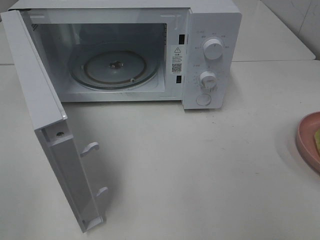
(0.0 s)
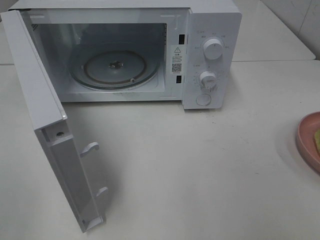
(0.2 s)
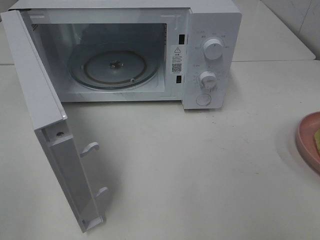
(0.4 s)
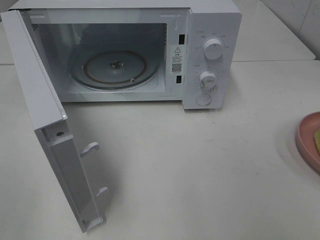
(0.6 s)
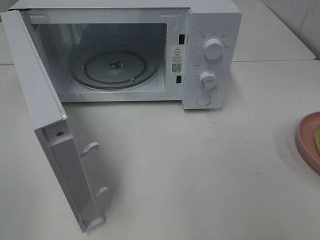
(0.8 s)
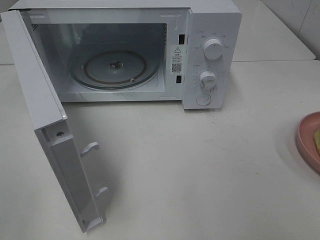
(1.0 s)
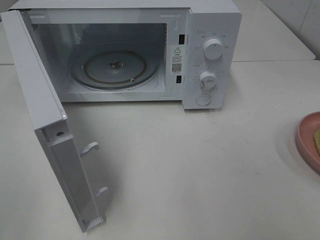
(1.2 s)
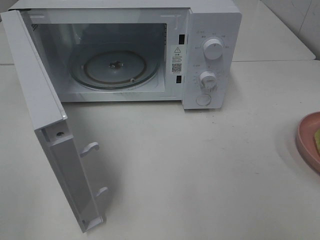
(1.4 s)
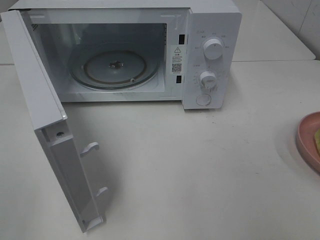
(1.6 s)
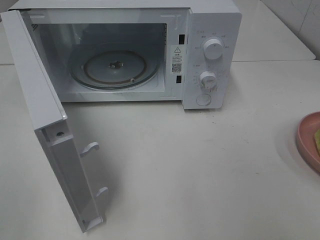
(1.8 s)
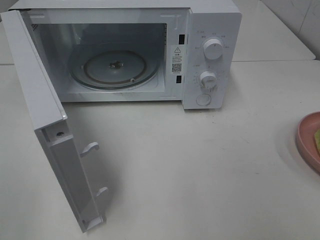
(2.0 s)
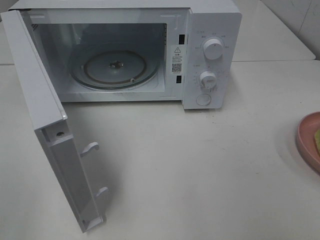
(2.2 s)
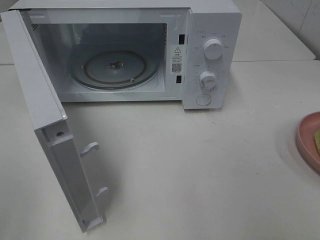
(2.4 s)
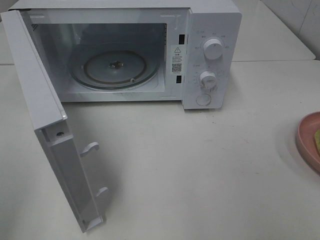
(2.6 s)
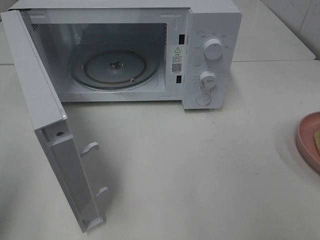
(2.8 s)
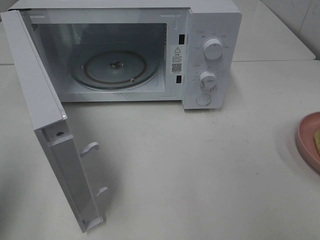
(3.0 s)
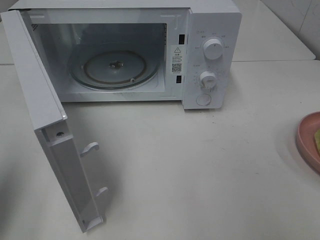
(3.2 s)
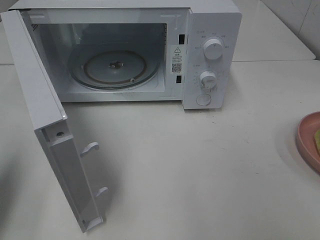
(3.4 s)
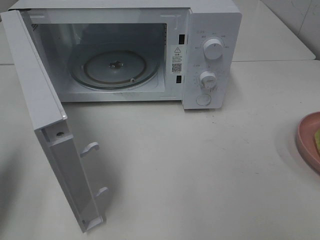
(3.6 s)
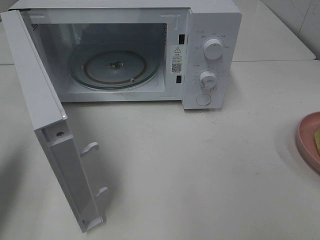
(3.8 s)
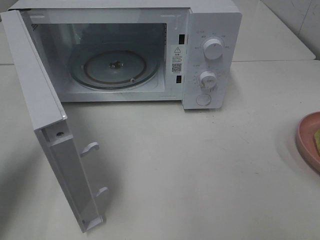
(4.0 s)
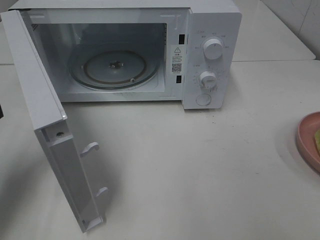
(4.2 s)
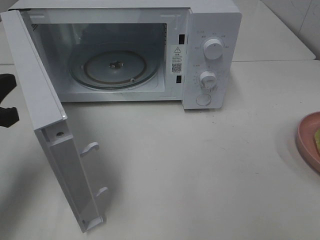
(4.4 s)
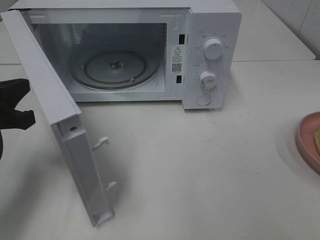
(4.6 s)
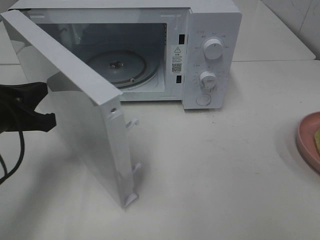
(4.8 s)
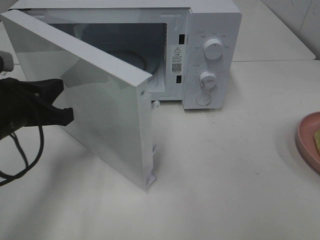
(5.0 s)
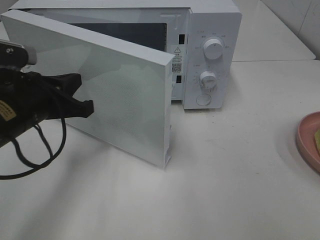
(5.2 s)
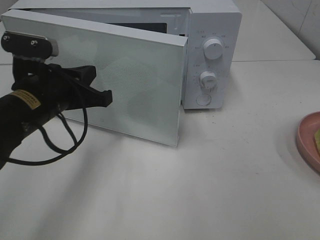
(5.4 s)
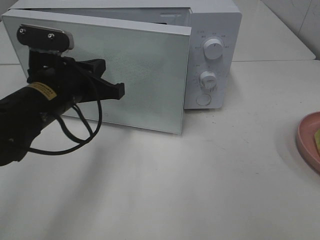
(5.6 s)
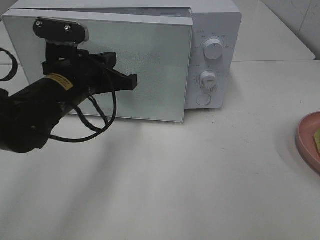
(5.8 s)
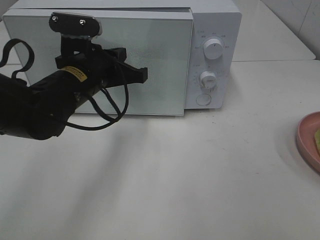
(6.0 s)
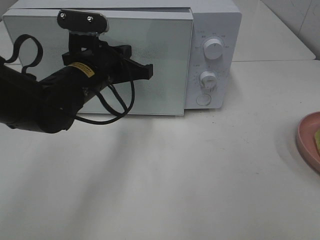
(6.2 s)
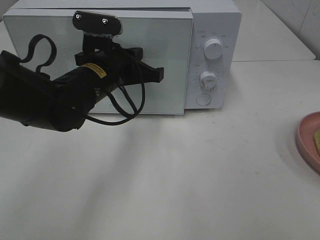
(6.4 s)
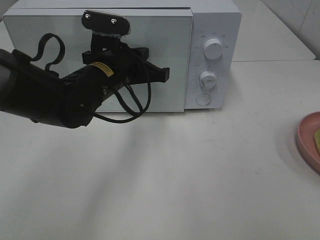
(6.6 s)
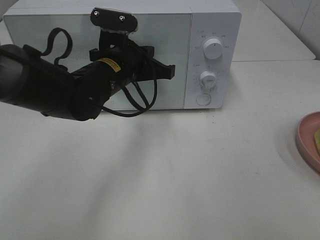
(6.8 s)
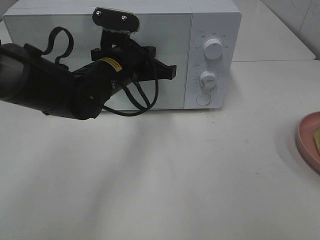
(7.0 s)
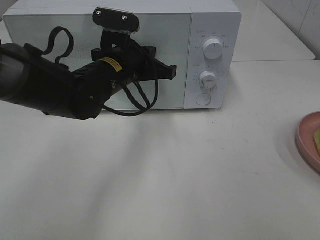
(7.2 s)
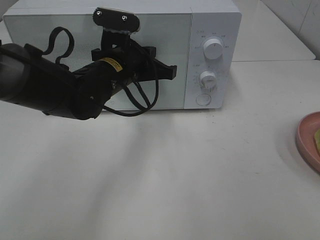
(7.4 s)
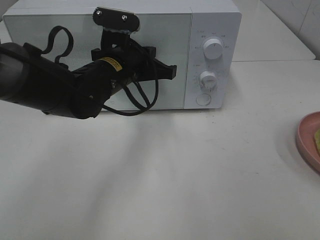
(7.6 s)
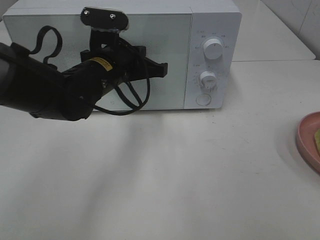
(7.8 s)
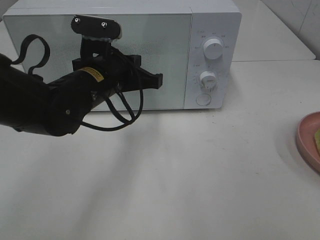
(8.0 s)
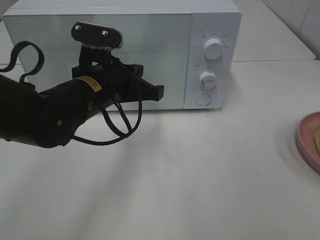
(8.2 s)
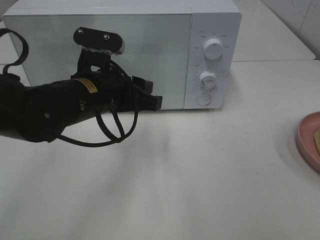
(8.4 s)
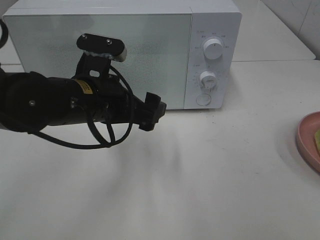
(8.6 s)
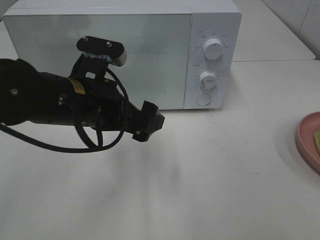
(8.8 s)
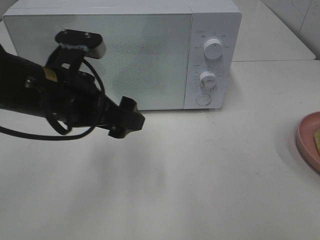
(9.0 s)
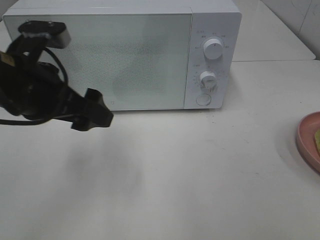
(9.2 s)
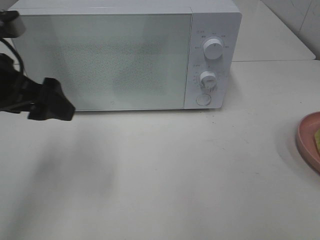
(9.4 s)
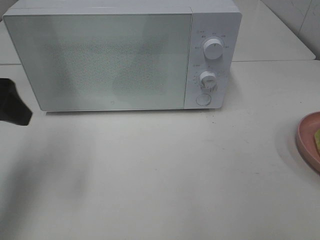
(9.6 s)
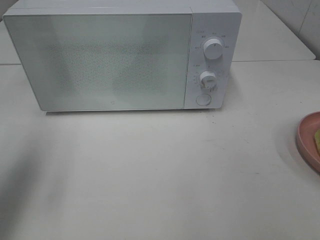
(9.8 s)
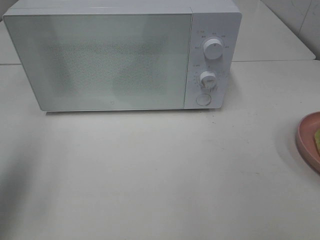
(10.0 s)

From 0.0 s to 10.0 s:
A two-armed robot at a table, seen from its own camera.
Task of the whole recording: Heat Sandwich.
Step, from 0.0 s to 7.2 s: Left hand: close the microwave door.
From 0.0 s to 1.4 s: Both grippers stay about where they are.
From 2.8 s to 4.2 s: The left gripper heads forward and downward, covering approximately 15 cm.
From 4.2 s to 5.8 s: The left gripper goes roughly 20 cm to the right and forward.
From 5.8 s to 7.2 s: The left gripper moves to the right, approximately 5 cm.
From 7.2 s to 8.6 s: The left gripper travels backward by about 10 cm, and opens.
From 8.6 s to 10.0 s: The left gripper moves to the left and upward, approximately 25 cm.

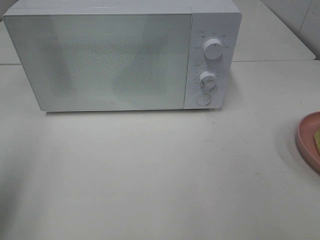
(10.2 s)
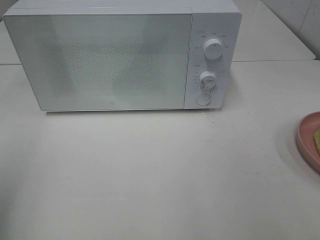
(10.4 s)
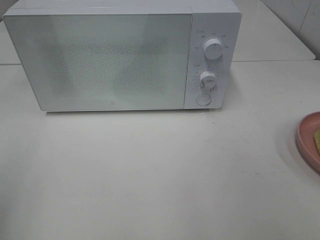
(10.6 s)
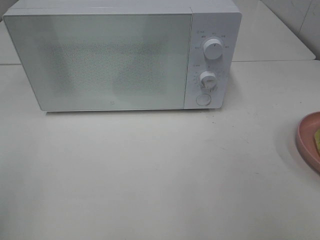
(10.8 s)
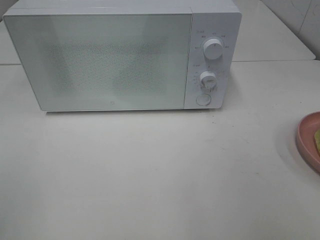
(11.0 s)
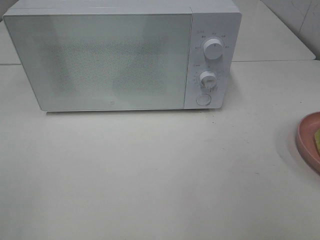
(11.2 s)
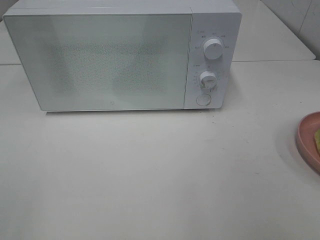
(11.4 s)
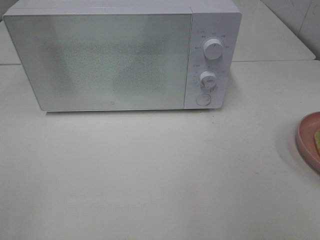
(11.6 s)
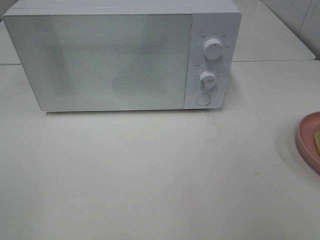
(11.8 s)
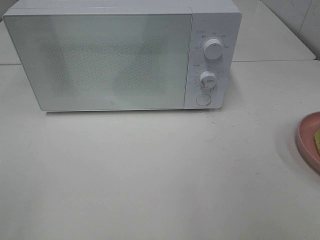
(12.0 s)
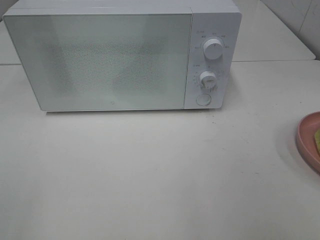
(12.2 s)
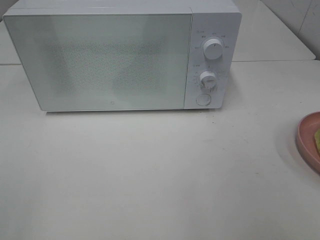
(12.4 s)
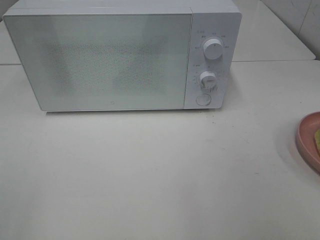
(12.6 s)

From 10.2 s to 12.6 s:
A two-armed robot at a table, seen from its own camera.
Task of the whole recording: Heat Sandwich.
From 10.2 s to 11.4 s: The left gripper shifts roughly 15 cm backward.
From 11.4 s to 12.6 s: Neither gripper changes place.
